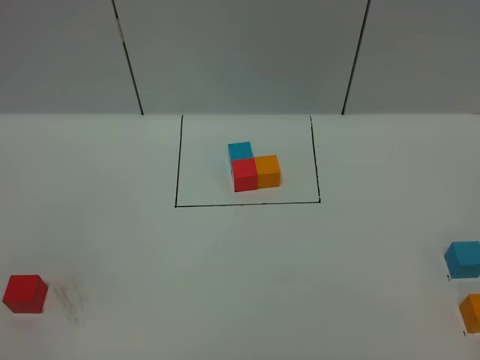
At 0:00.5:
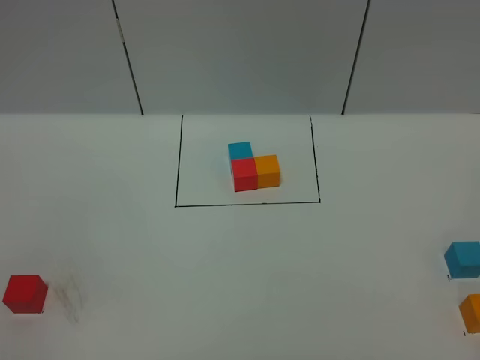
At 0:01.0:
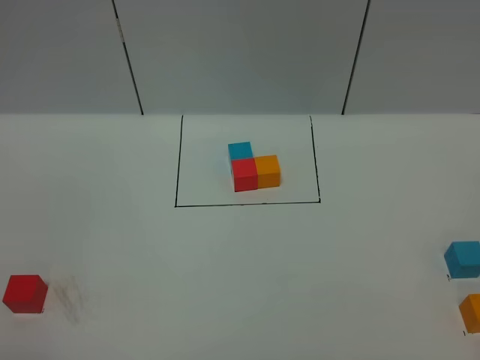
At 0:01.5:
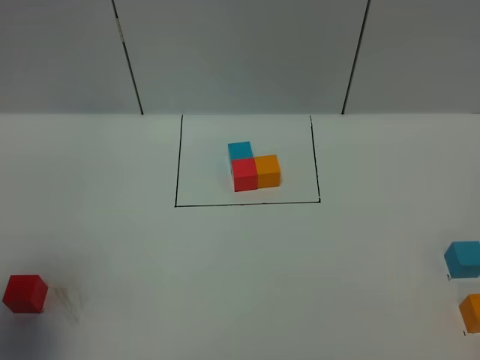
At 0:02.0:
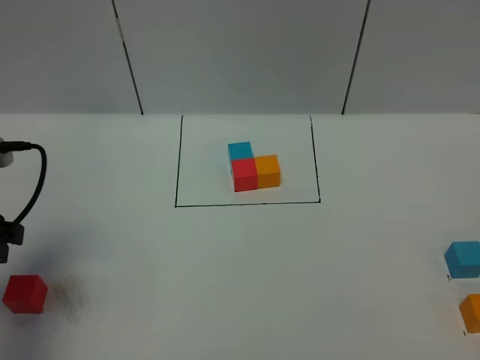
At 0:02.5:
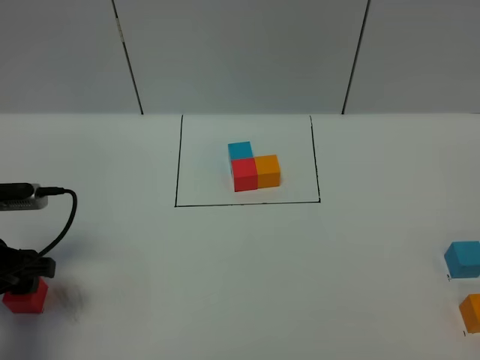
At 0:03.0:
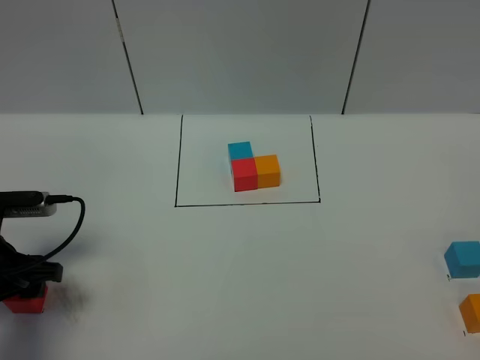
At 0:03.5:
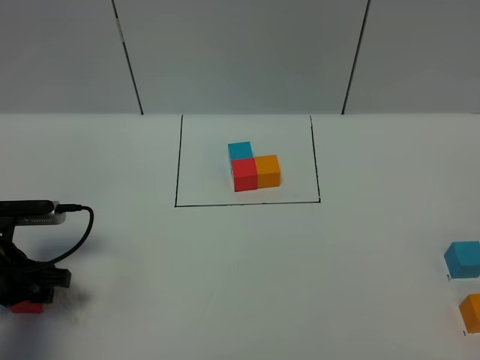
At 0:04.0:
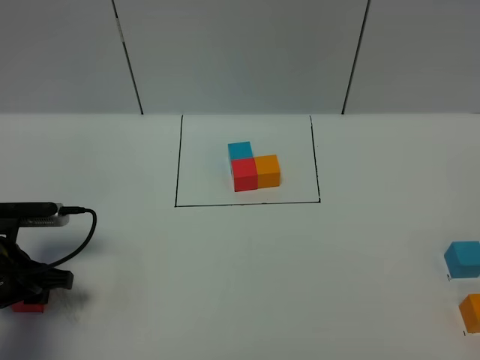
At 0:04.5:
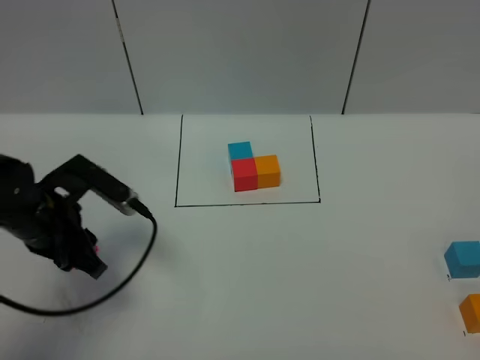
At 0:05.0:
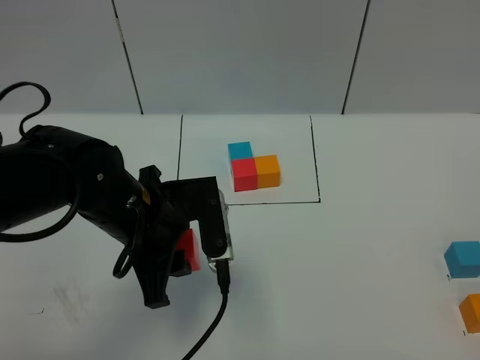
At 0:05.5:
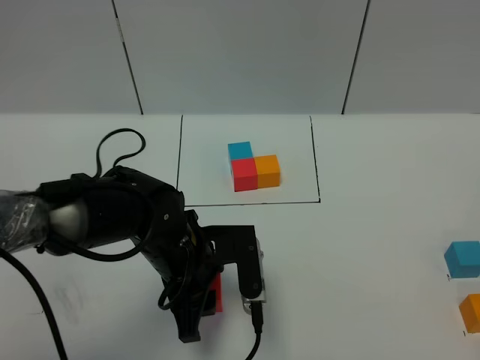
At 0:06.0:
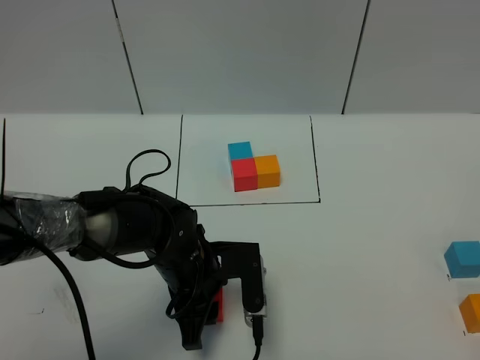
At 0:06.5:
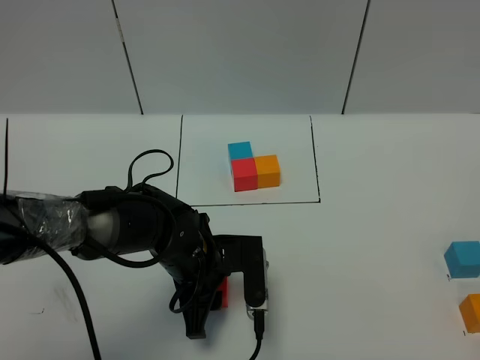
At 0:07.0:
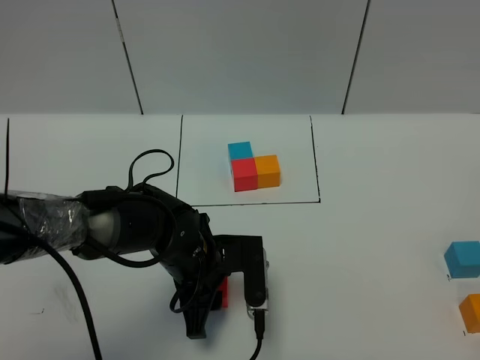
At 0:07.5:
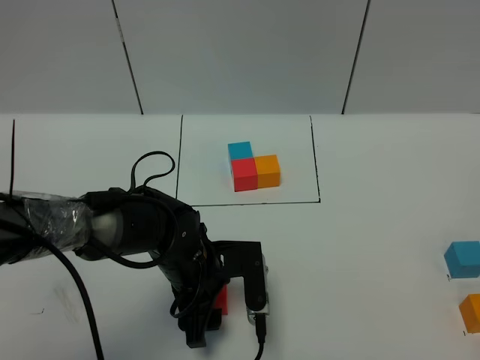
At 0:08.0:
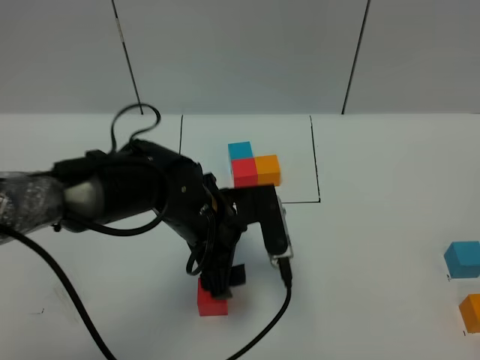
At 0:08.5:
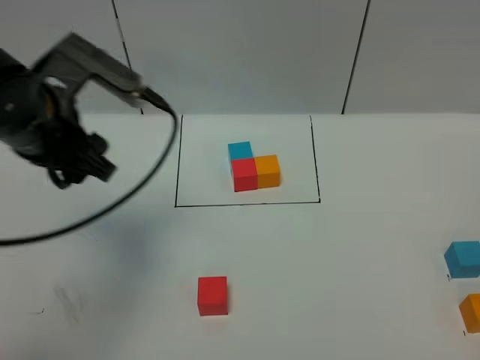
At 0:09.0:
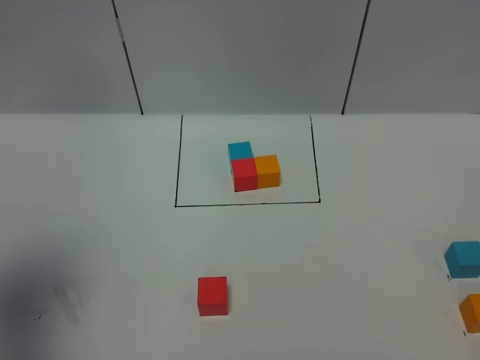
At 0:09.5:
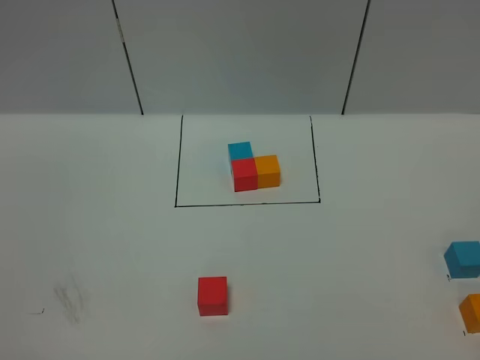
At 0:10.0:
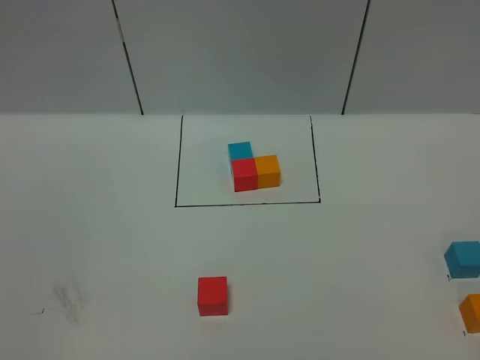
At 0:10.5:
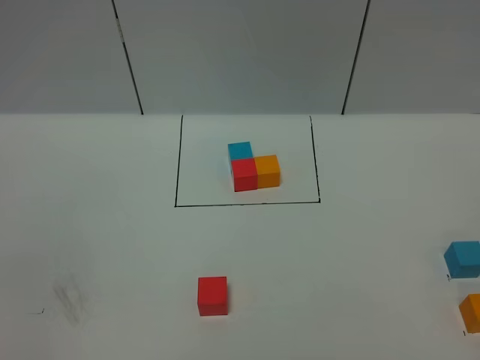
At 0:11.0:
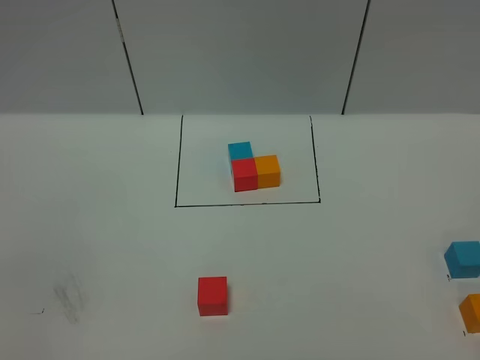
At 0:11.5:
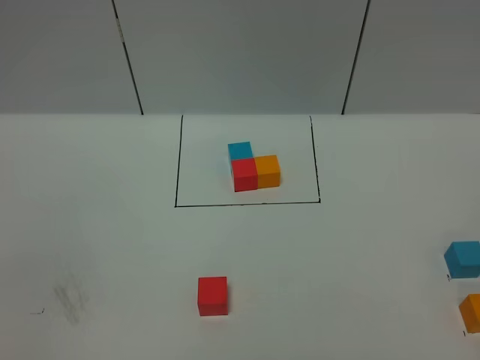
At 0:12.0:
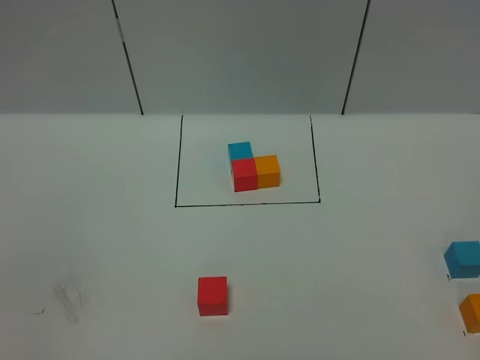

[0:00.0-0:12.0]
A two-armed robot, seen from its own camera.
Task of the whole recording: According to the building block template in front, assemble the scattered blocks together.
Step, 0:02.0 to 0:07.5: Put the red cube in the center of the table.
0:00.0 to 0:02.0: The left gripper moves forward, approximately 25 cm.
0:02.0 to 0:04.0: The left gripper travels downward by approximately 15 cm, and closes up.
0:04.0 to 0:06.0: The left gripper moves to the right, roughly 25 cm.
0:06.0 to 0:08.0: The left gripper travels upward by roughly 10 cm, and opens its fingers.
0:08.0 to 0:10.0: The left gripper travels backward, to the left and upward by roughly 40 cm.

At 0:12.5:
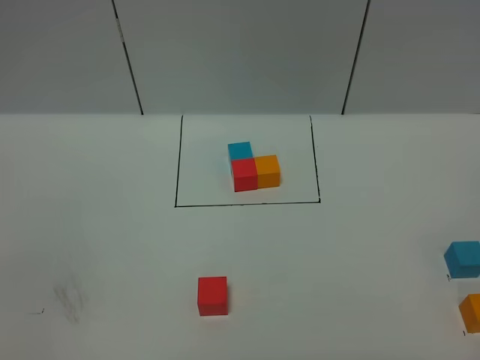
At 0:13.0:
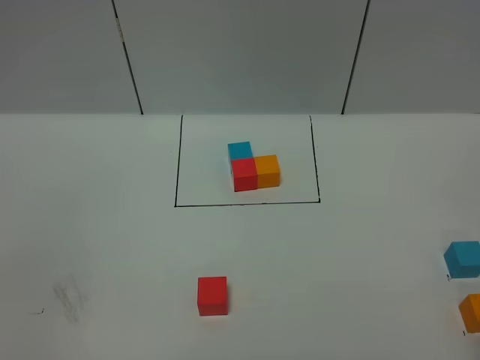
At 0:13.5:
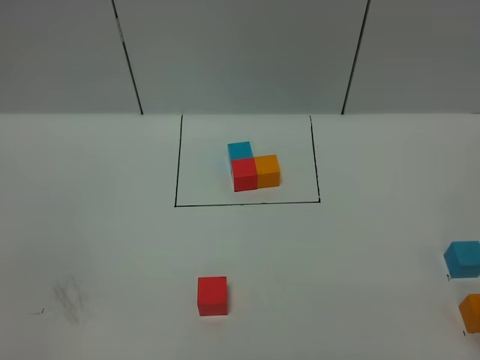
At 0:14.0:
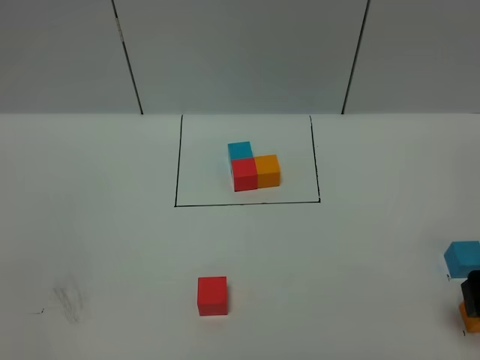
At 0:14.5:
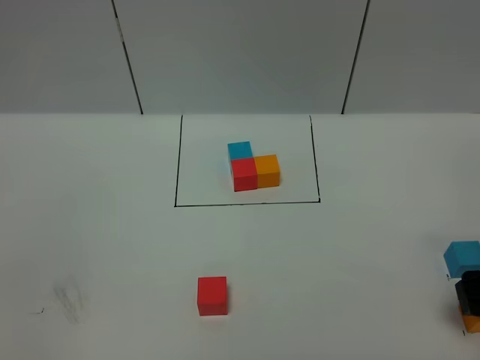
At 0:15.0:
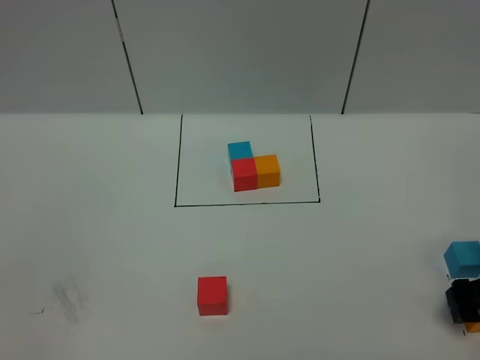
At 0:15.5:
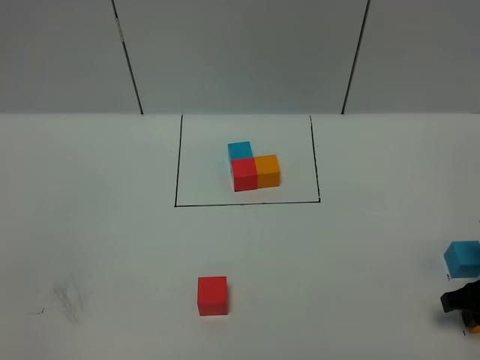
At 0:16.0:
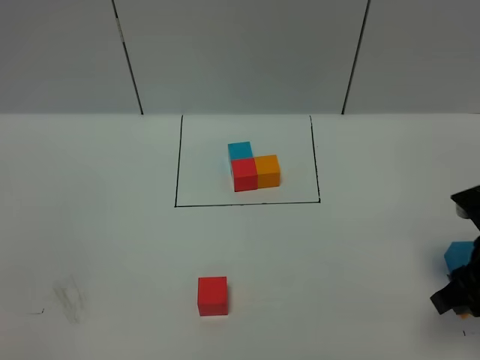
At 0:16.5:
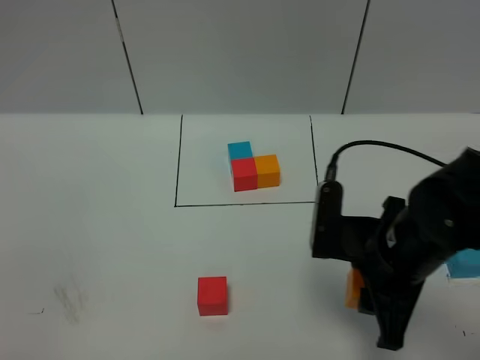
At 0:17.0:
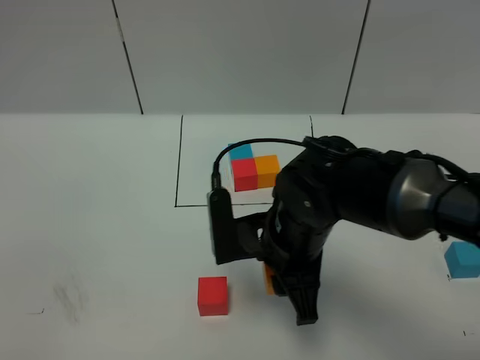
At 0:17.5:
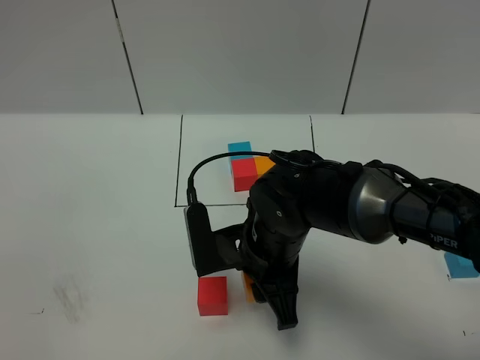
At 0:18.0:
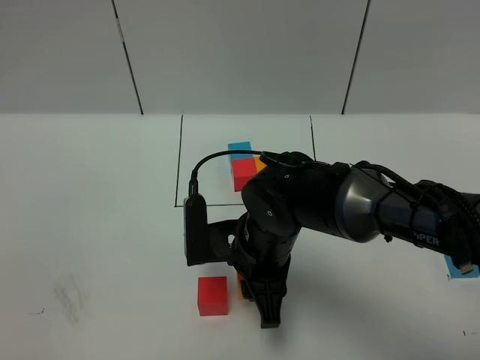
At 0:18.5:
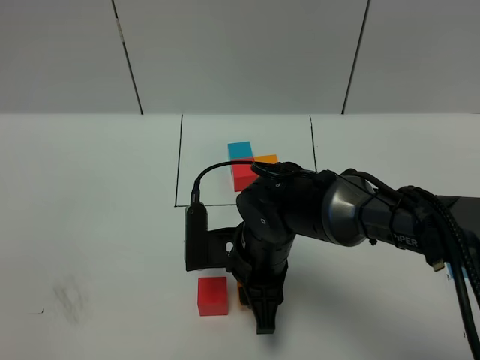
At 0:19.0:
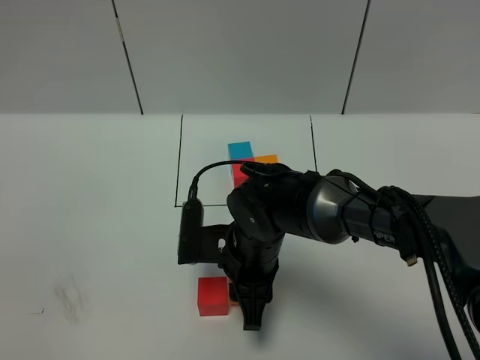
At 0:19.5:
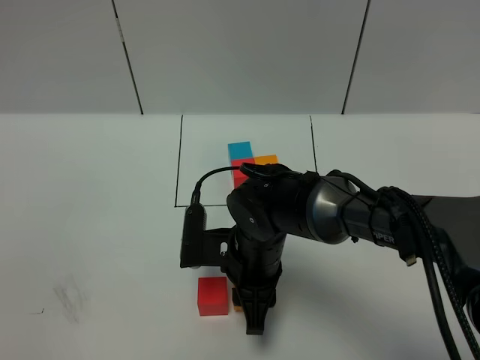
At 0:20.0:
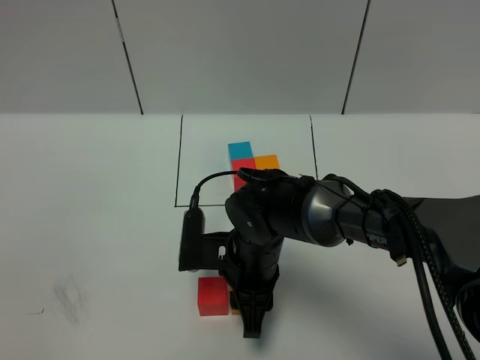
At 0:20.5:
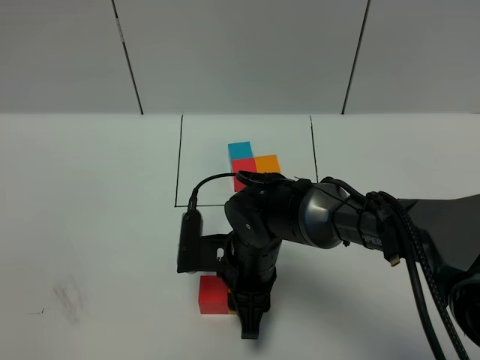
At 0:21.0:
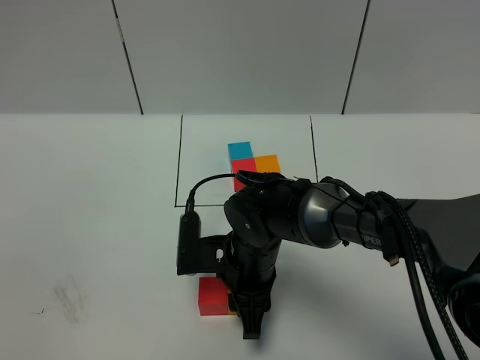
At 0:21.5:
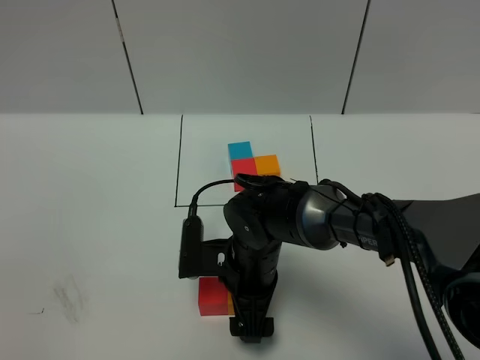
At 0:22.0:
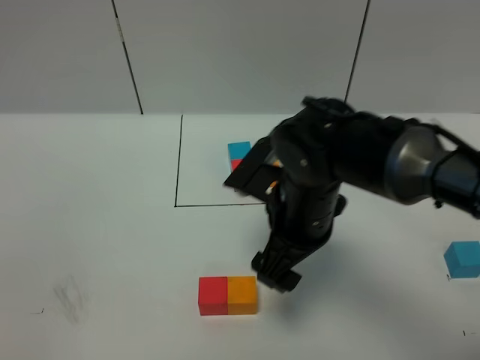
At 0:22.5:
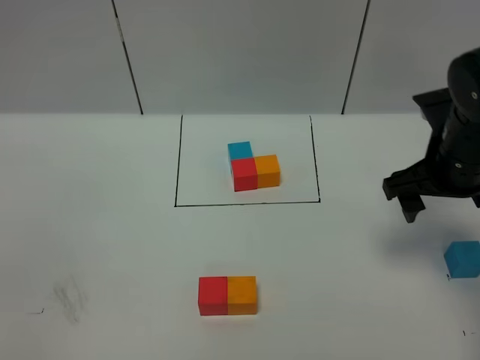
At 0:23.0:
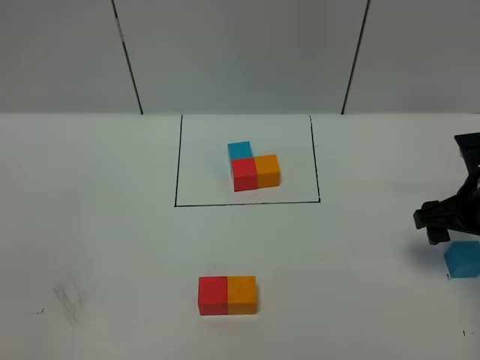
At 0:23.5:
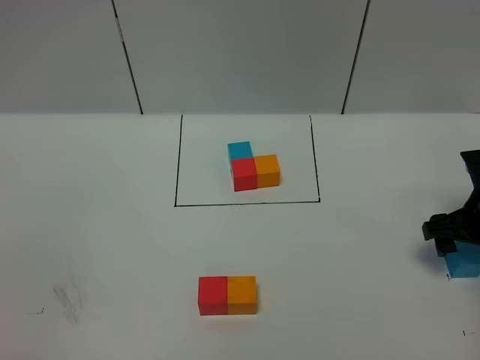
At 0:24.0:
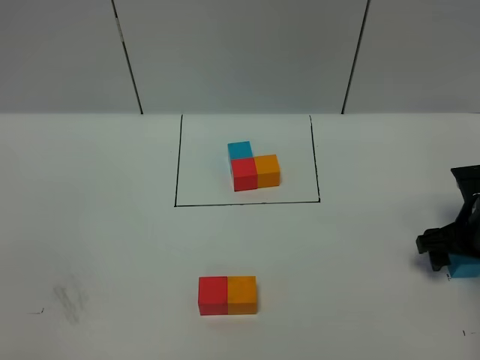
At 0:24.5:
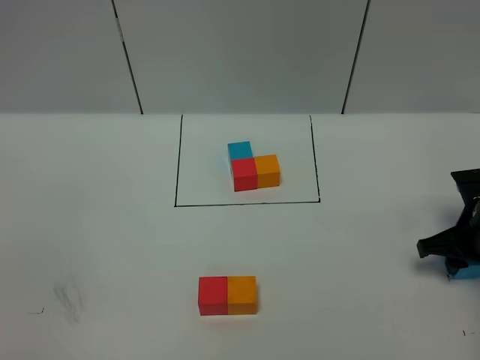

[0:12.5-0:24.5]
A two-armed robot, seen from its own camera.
Task of the whole recording: According to the building block template in front, assemble the scattered blocks together.
Step, 0:12.5 to 0:21.5: Put the orange cube on the right of the red cube.
0:12.5 to 0:14.5: The right gripper goes roughly 25 cm forward and downward.
0:14.5 to 0:16.5: The right gripper is displaced to the left by about 20 cm, and closes.
0:16.5 to 0:18.5: The right gripper moves to the left and downward, roughly 15 cm.
0:18.5 to 0:20.5: The grippers make only small movements.
0:20.5 to 0:22.5: The right gripper goes some 25 cm to the right and upward, and opens up.
0:22.5 to 0:24.5: The right gripper is displaced downward and to the right by approximately 15 cm, and closes up.

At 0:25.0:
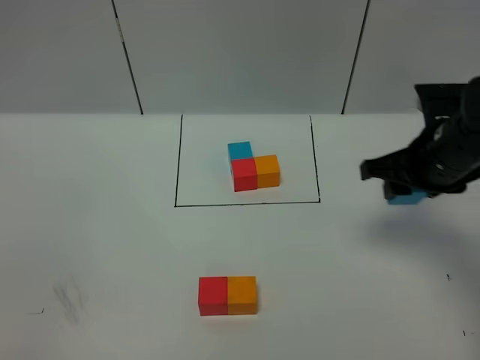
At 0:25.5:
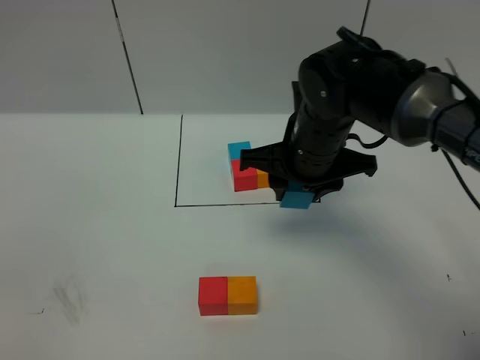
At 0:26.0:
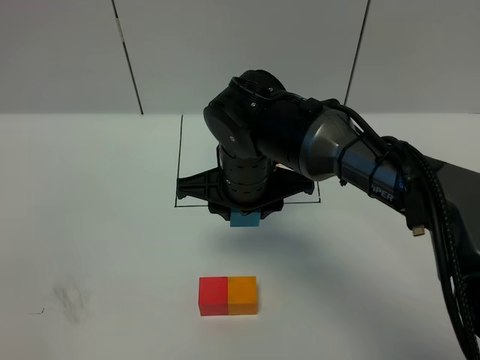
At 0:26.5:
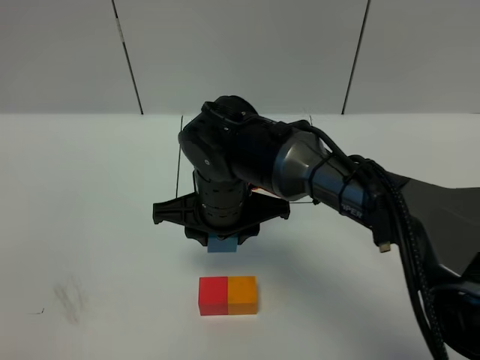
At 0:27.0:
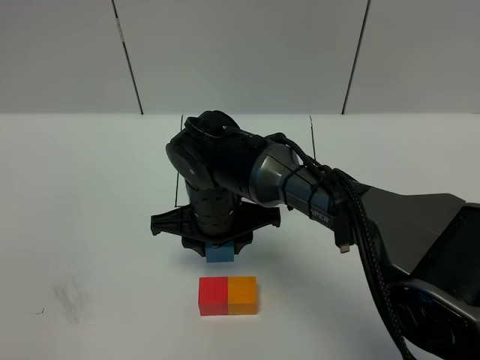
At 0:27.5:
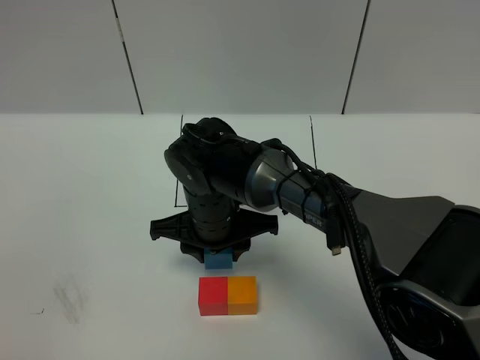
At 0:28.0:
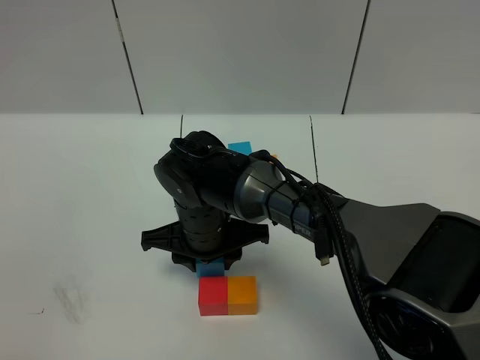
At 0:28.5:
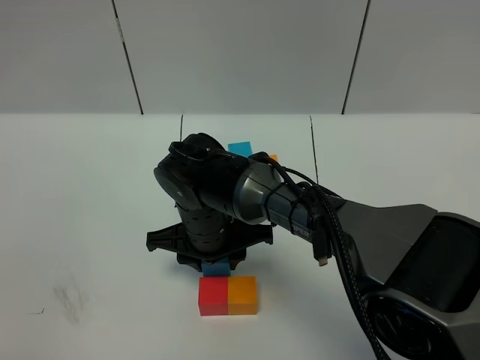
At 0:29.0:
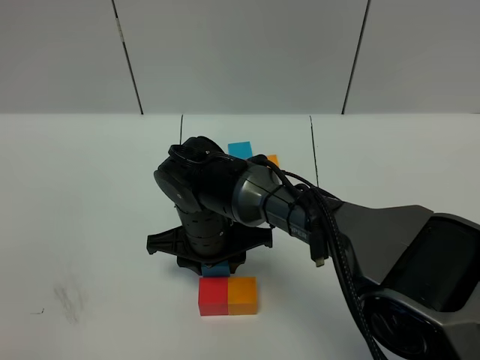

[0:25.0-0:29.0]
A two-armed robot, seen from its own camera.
Task of the whole recording: According to the building block template in front, assemble the scattered blocks together.
0:25.0 to 0:27.0: The right gripper travels to the left by roughly 25 cm.
0:27.0 to 0:29.0: The grippers move only a little.
